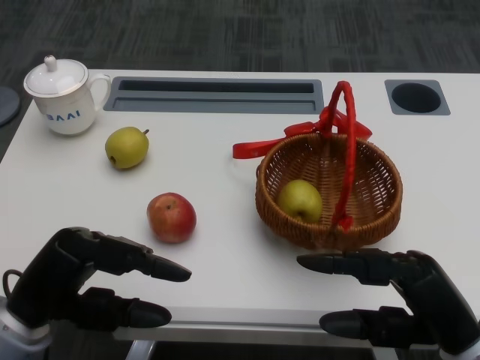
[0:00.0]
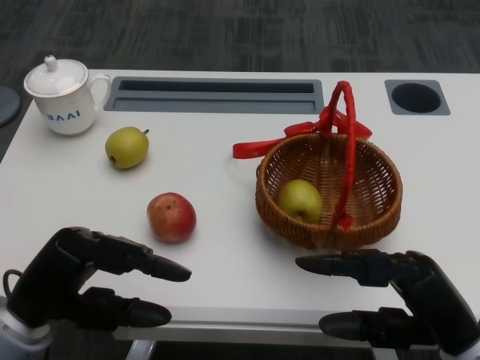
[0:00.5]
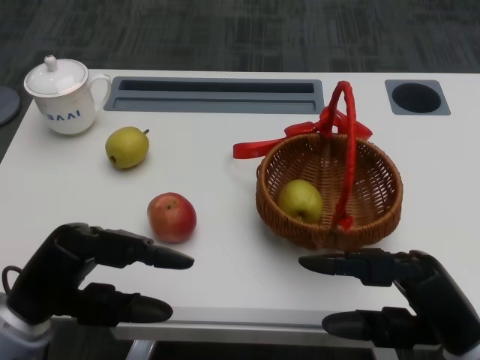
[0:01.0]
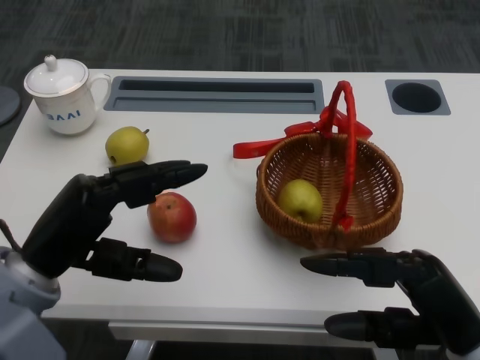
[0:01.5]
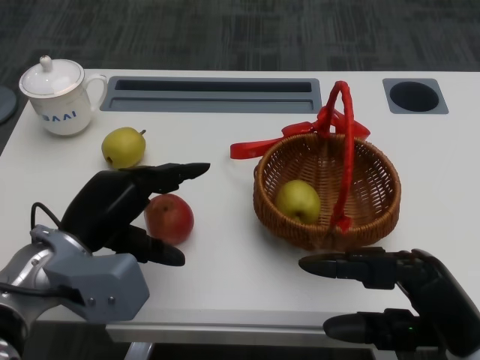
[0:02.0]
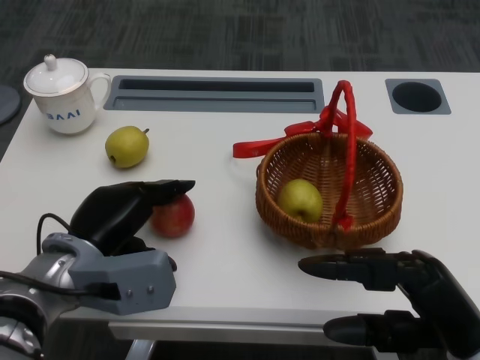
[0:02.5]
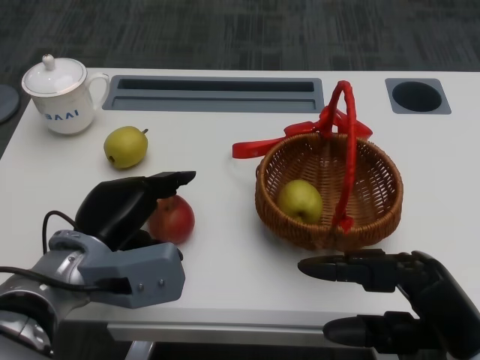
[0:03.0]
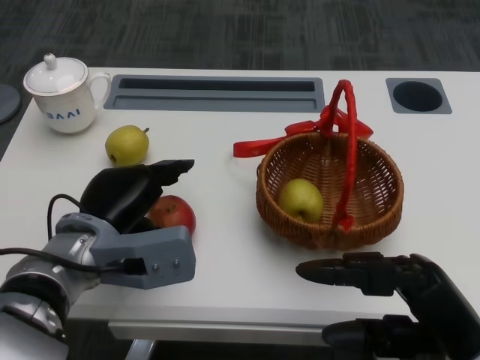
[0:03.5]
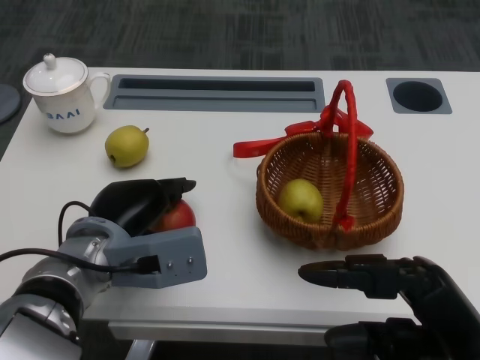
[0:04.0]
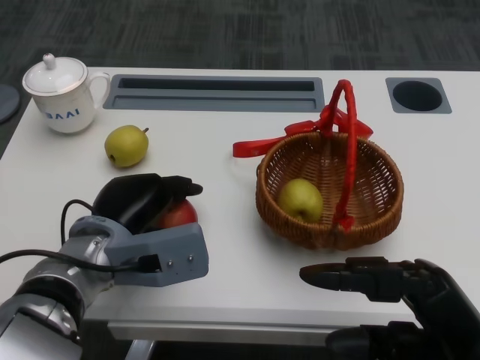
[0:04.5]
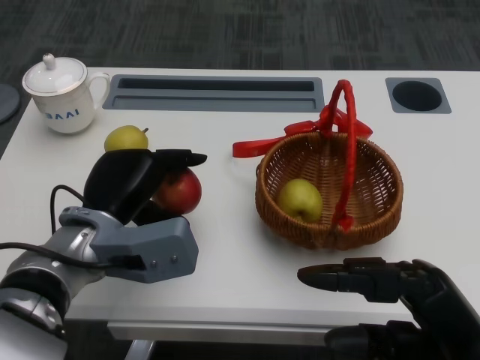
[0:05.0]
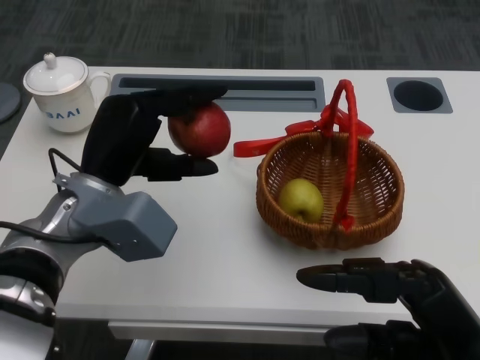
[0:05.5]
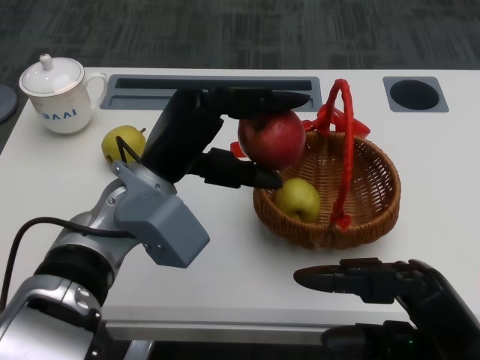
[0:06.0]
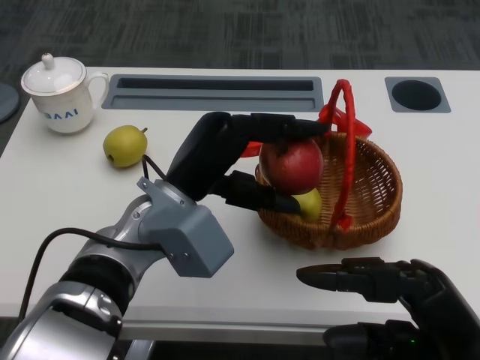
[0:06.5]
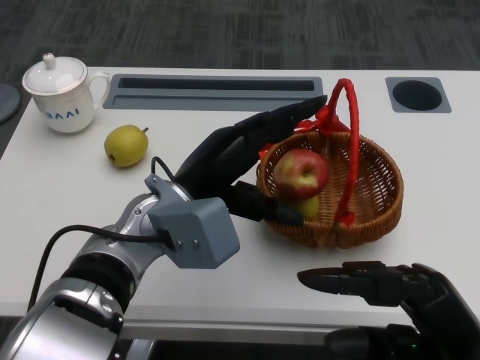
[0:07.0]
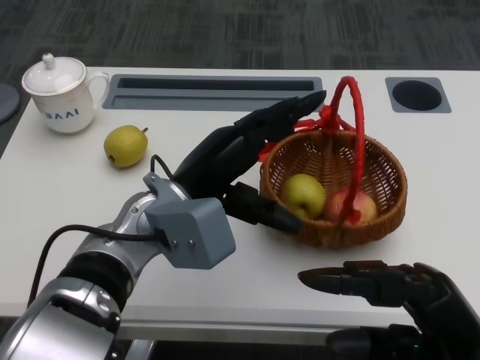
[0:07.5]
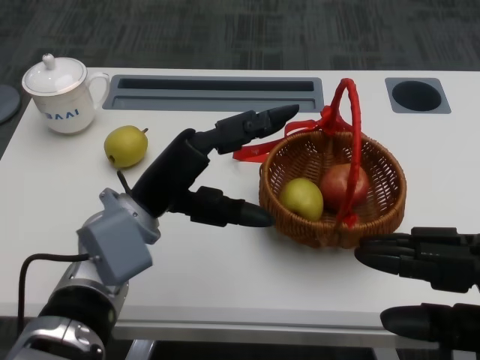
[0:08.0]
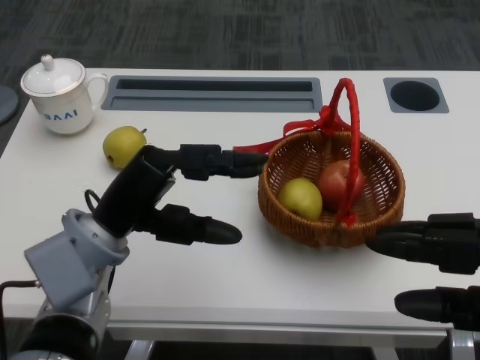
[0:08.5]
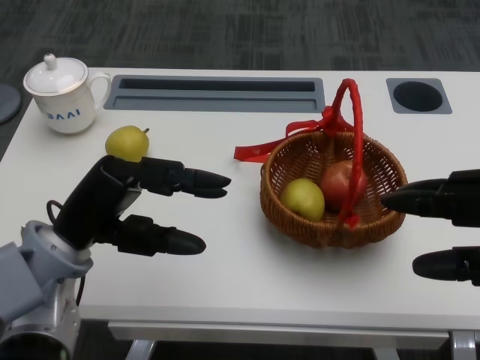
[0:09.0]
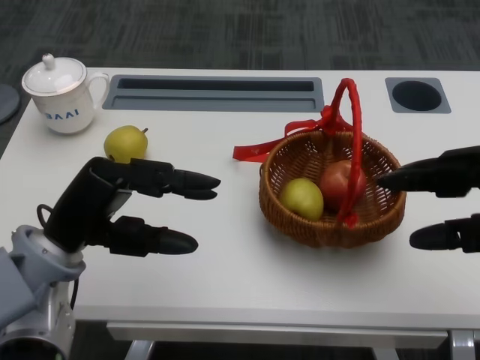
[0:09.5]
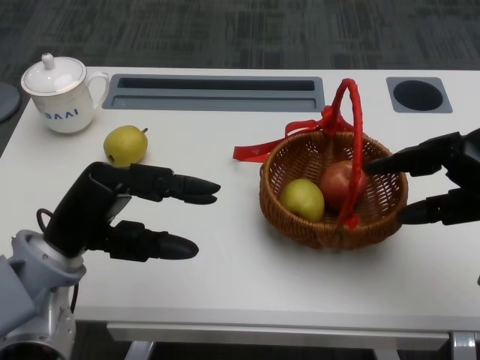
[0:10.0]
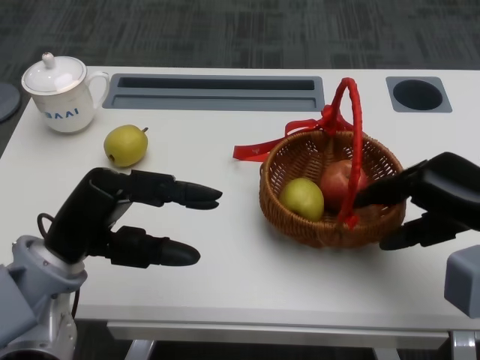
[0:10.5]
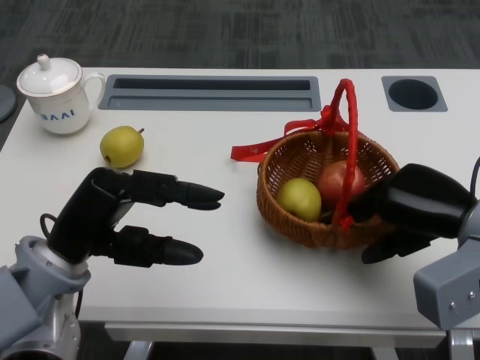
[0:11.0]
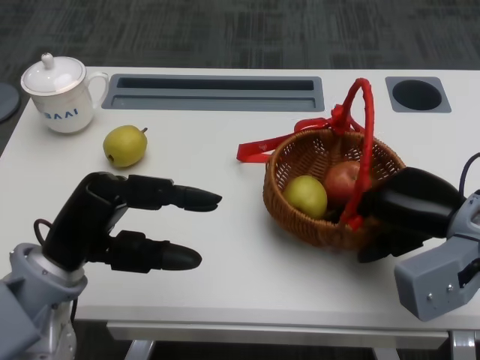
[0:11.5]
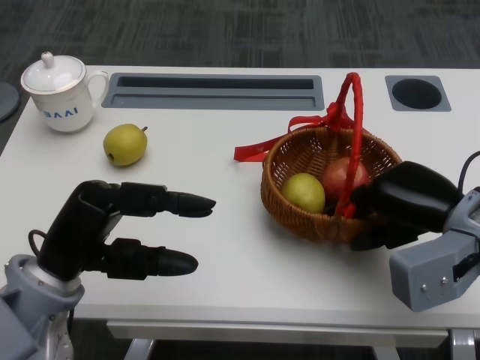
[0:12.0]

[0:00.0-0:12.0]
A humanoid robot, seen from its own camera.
Step, 0:01.0 to 0:03.5: Grasp the apple with the left gripper.
Step, 0:04.0 to 0:05.5: Place the apple into the basket with the left gripper.
Step, 0:06.0 to 0:09.5: Grasp the basket with the right gripper.
Step, 0:10.0 to 0:11.5: Move the basket to the front of the table with the right gripper.
0:04.0 to 0:06.0: The left hand heads upward, covering roughly 10 cm.
0:06.0 to 0:08.0: The right hand shifts by approximately 5 cm.
0:08.0 to 0:10.0: The right hand goes some 10 cm forward, while the left hand goes approximately 10 cm to the left.
0:10.0 to 0:12.0: The right hand moves to the left, about 5 cm.

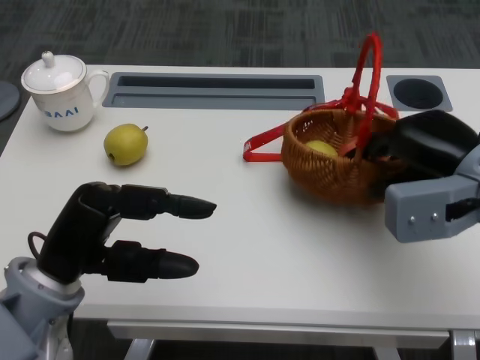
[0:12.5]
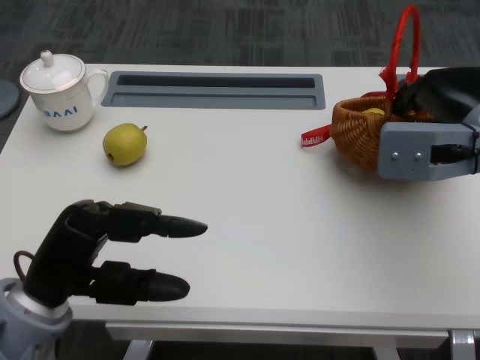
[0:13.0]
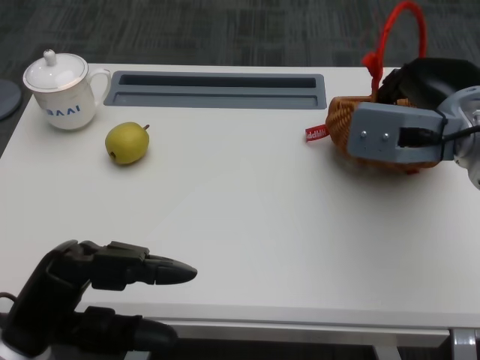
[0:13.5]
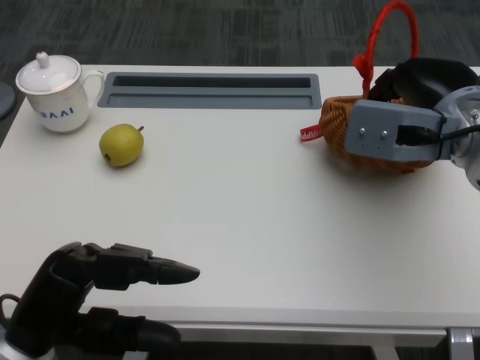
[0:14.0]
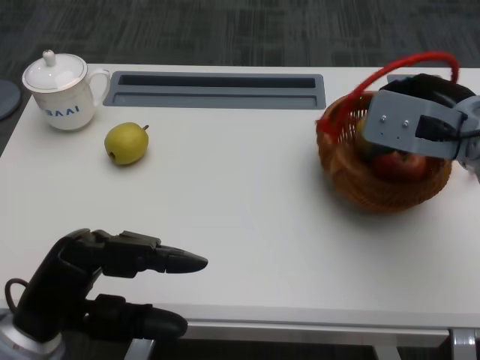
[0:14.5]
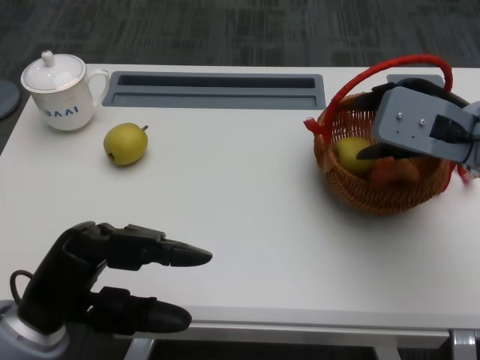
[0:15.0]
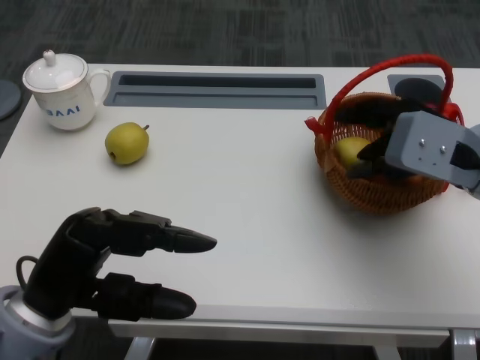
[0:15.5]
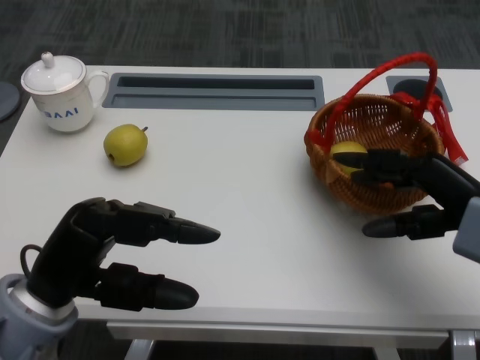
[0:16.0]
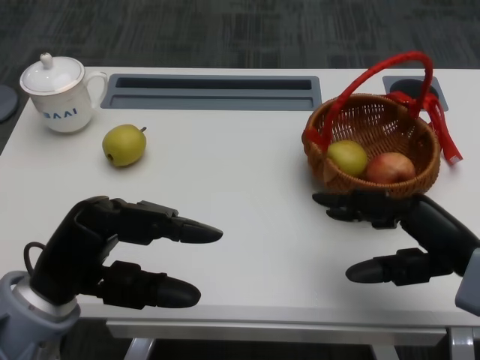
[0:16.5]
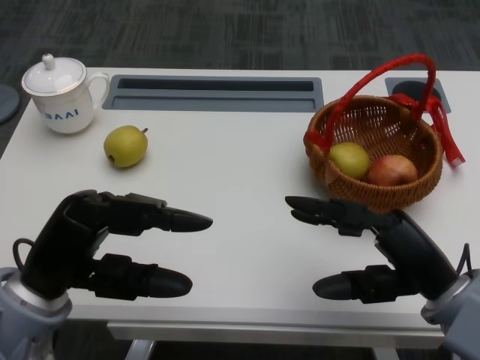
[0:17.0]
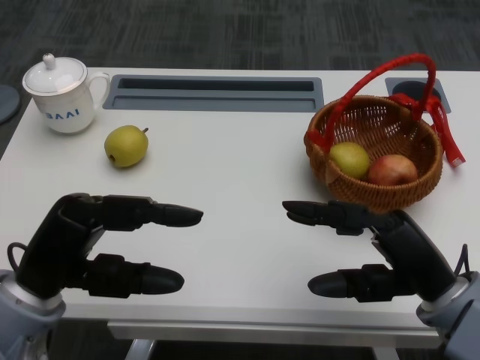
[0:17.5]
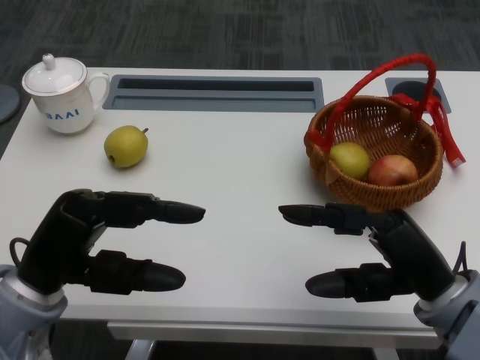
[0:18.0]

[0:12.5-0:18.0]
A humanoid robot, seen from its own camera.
0:12.5 to 0:14.5: The left hand changes place by roughly 5 cm.
0:14.5 to 0:16.0: The right hand travels backward and downward by roughly 10 cm.
0:16.0 to 0:18.0: The right hand moves backward and to the left, approximately 10 cm.
